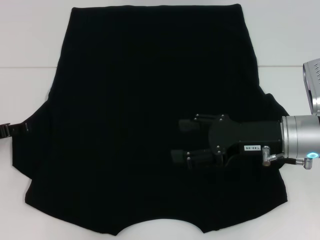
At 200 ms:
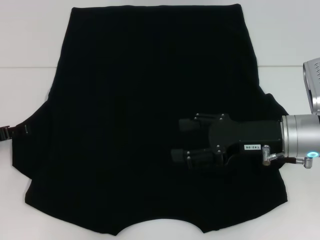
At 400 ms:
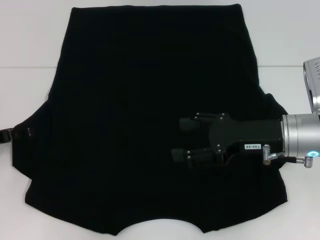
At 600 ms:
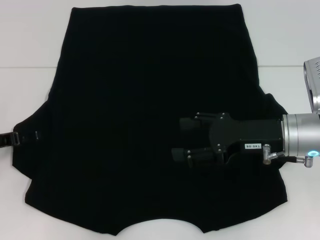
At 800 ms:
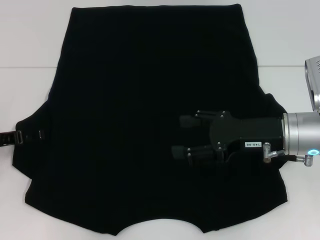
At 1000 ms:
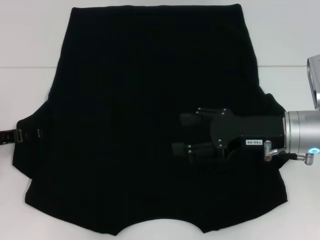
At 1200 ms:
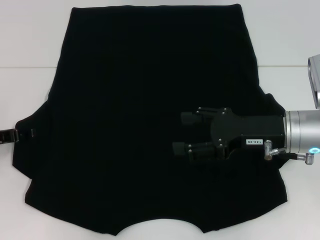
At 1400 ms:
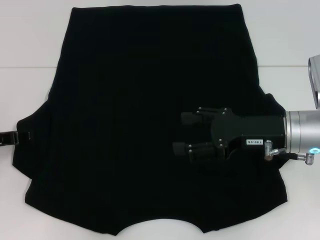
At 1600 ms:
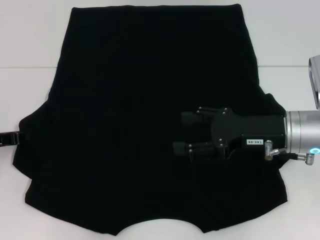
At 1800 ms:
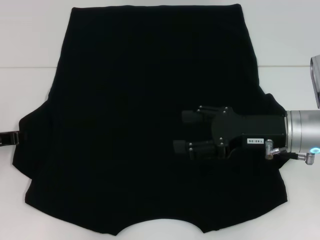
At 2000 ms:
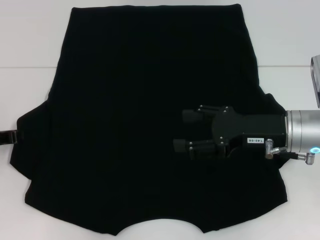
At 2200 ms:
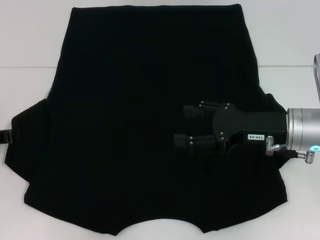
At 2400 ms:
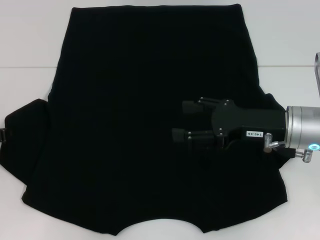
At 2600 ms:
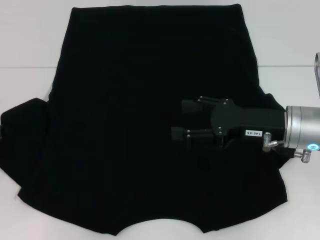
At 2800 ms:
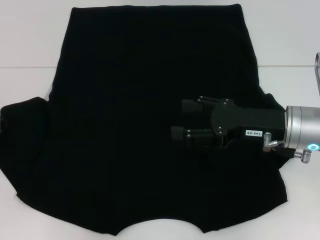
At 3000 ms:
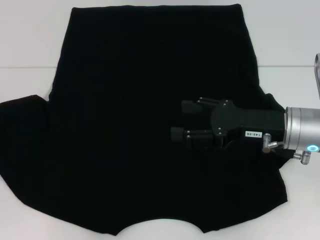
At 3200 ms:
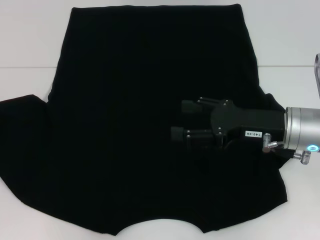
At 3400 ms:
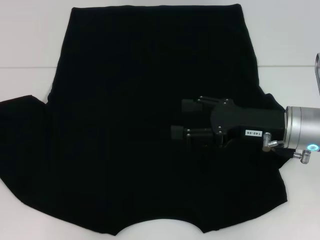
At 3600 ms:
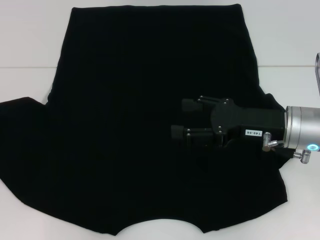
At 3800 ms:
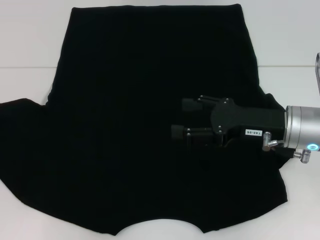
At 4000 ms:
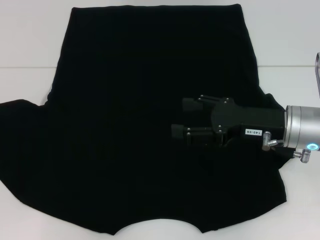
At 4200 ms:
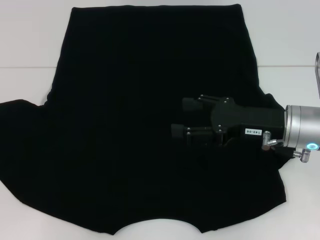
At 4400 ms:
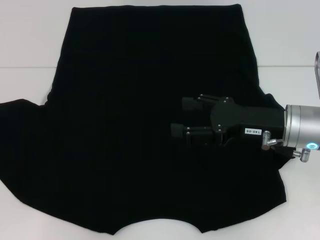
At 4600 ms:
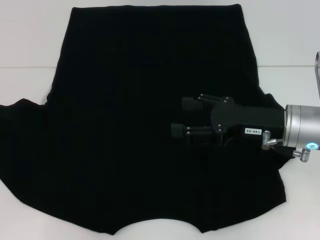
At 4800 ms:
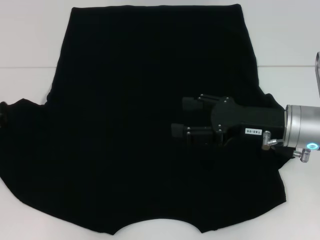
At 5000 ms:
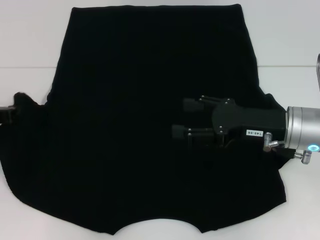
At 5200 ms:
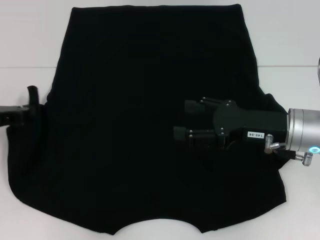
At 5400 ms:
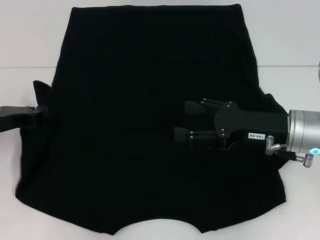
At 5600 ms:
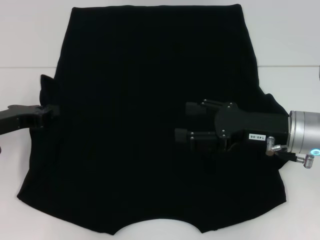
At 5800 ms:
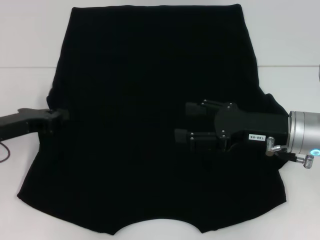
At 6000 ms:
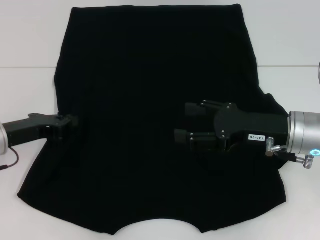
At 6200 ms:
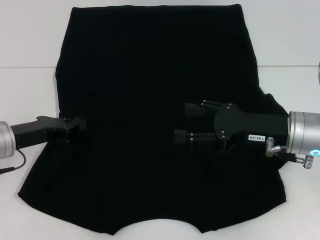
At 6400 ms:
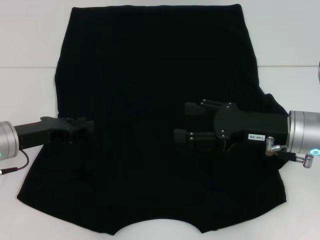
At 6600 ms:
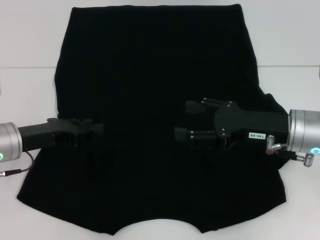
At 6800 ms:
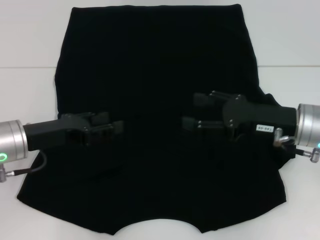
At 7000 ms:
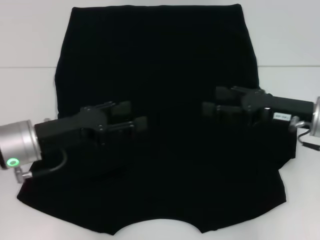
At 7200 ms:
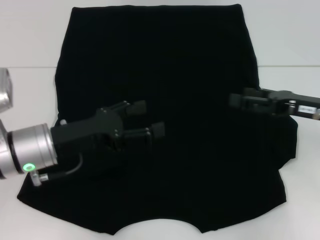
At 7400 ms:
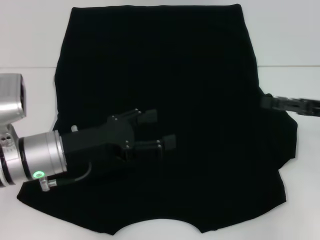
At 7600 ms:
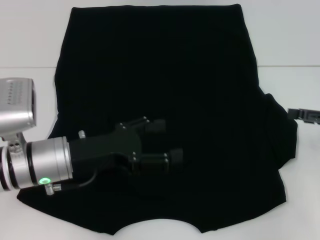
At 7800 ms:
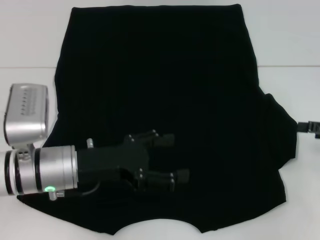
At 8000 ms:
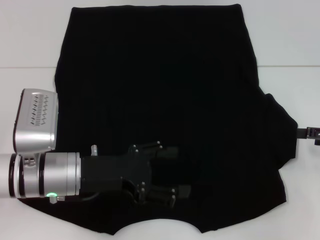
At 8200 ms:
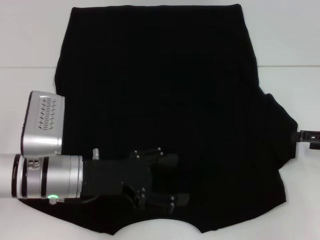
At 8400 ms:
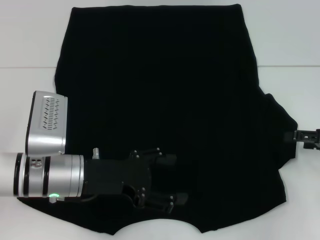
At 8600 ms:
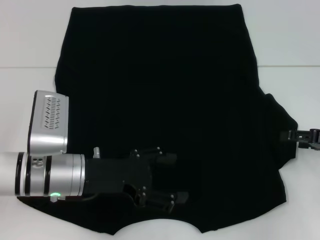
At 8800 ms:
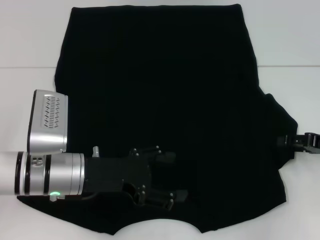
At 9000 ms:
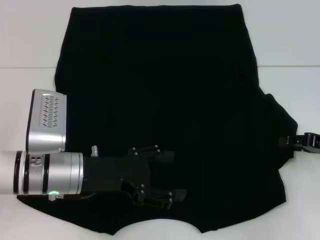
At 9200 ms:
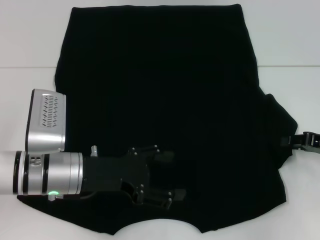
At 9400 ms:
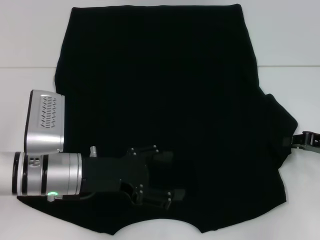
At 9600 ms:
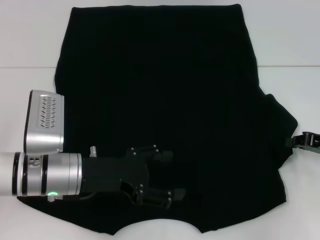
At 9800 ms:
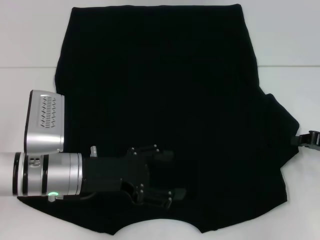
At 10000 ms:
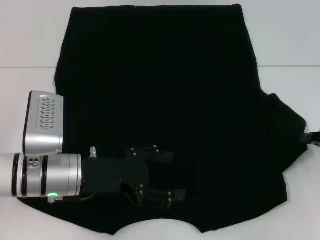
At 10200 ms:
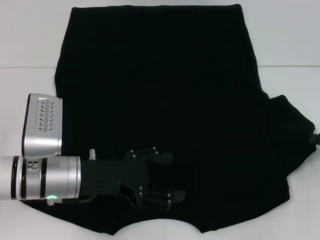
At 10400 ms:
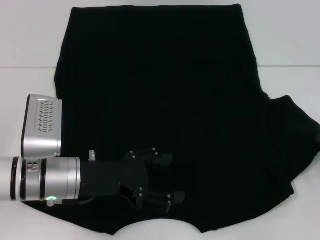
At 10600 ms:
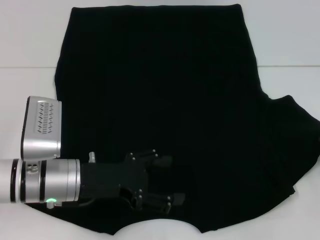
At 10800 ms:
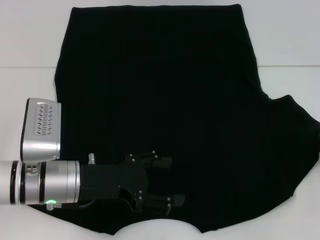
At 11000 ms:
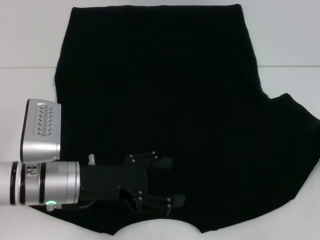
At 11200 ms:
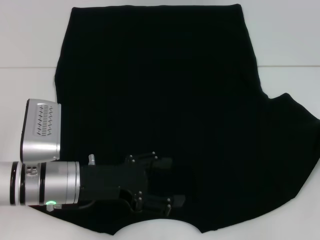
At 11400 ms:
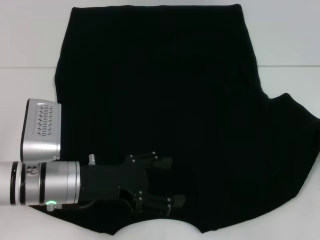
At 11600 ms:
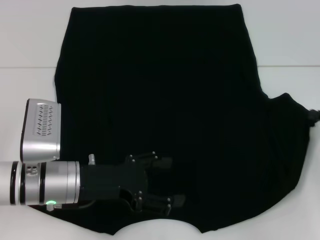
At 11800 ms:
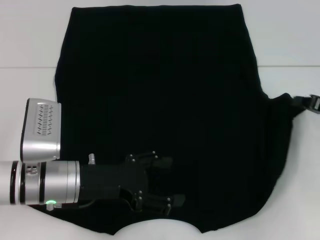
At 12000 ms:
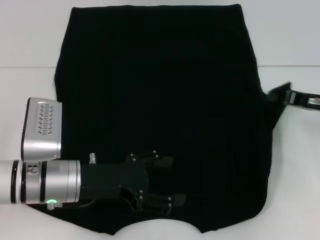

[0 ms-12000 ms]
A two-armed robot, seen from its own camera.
Step, 0 ms to 6600 ms: Fold the bottom left sleeve with your left hand.
0 ms to 1600 ms: The left gripper closes.
1600 ms to 3000 ms: The left gripper closes.
3000 ms to 4400 ms: The grippers make only small movements.
4400 ms to 6000 ms: The left gripper goes some 10 cm to the right.
6000 ms to 7600 ms: The left gripper goes approximately 10 cm to the right, and opens up. Meanwhile the right gripper is displaced to the right by about 15 cm.
7600 ms to 9000 ms: The grippers make only small movements.
9000 ms to 10400 ms: The right gripper changes place by roughly 5 cm, and closes up.
10400 ms to 12000 ms: The right gripper moves to the left and forward, about 10 cm.

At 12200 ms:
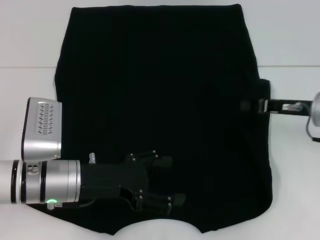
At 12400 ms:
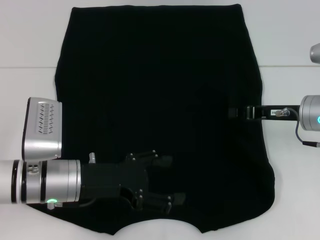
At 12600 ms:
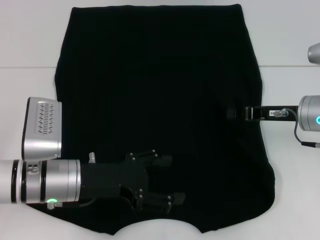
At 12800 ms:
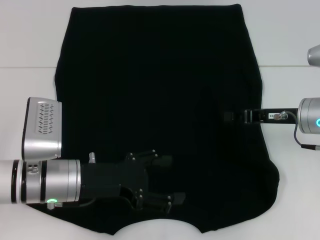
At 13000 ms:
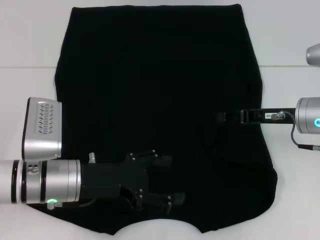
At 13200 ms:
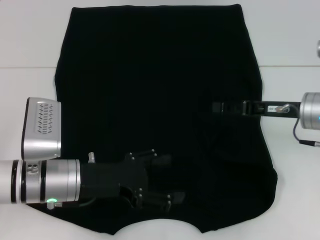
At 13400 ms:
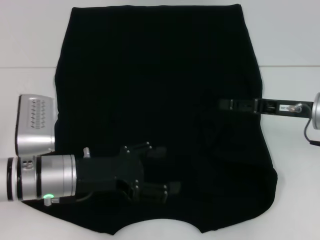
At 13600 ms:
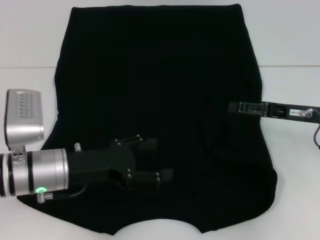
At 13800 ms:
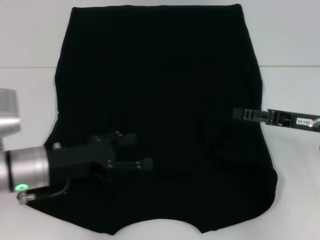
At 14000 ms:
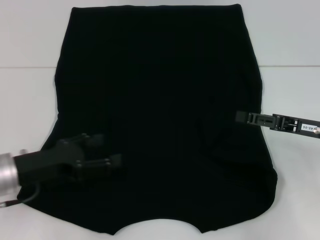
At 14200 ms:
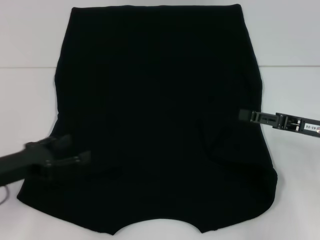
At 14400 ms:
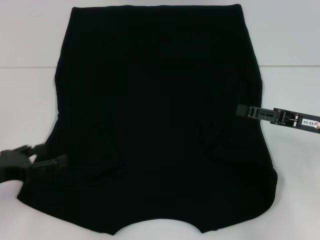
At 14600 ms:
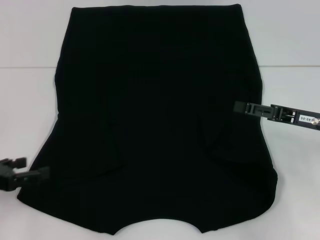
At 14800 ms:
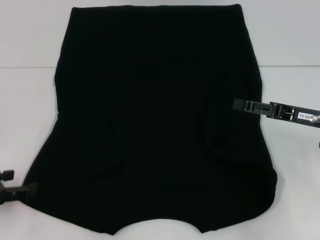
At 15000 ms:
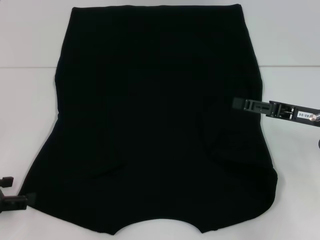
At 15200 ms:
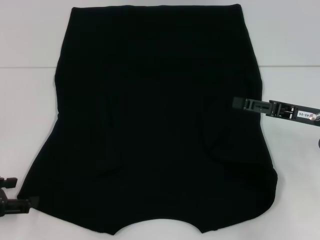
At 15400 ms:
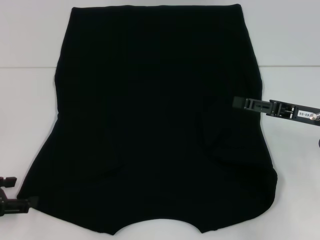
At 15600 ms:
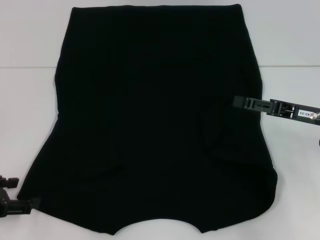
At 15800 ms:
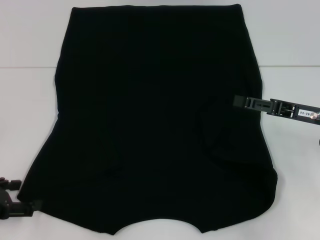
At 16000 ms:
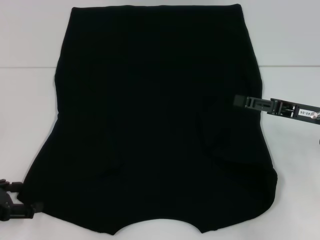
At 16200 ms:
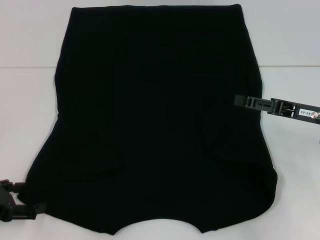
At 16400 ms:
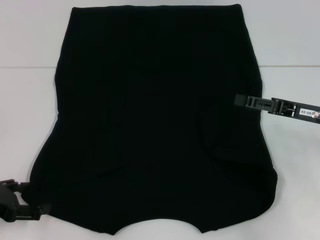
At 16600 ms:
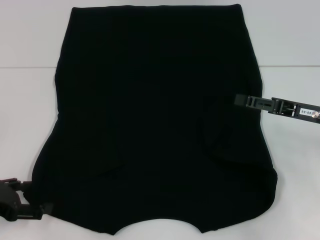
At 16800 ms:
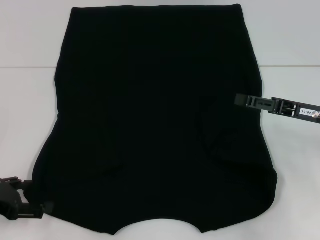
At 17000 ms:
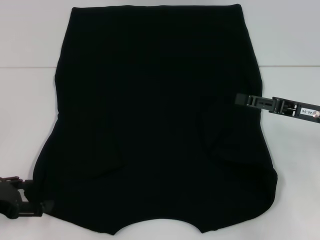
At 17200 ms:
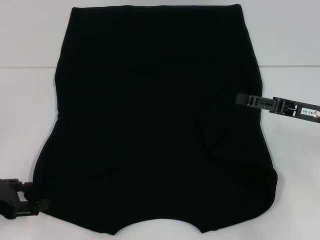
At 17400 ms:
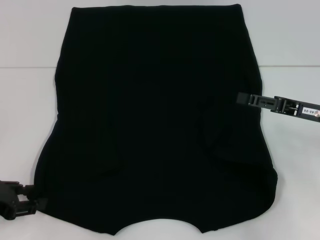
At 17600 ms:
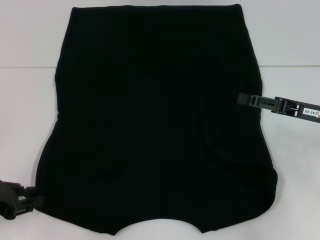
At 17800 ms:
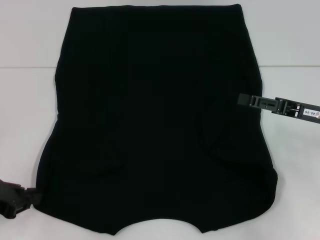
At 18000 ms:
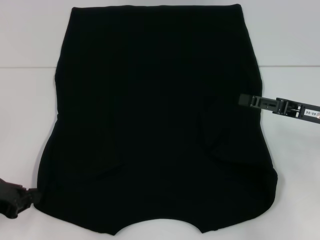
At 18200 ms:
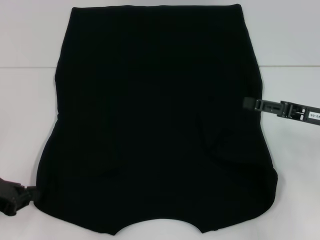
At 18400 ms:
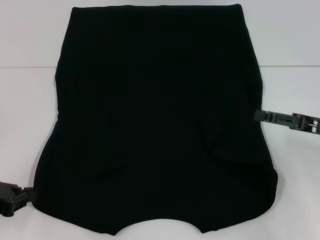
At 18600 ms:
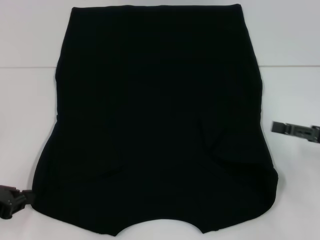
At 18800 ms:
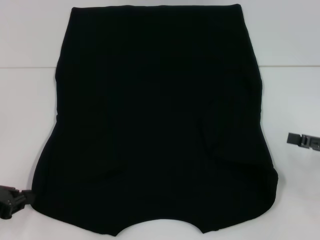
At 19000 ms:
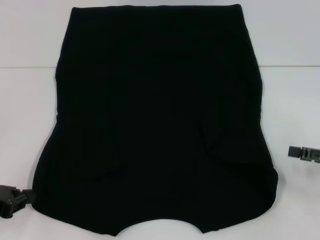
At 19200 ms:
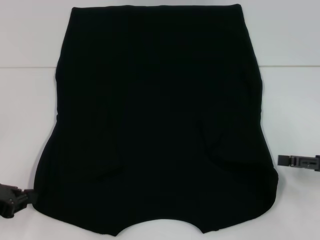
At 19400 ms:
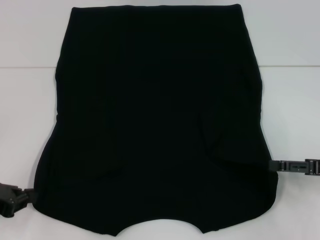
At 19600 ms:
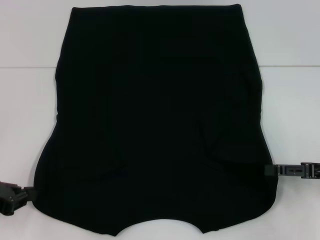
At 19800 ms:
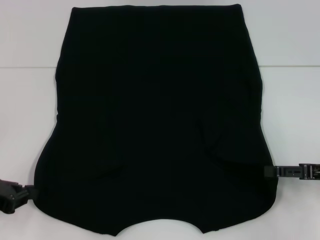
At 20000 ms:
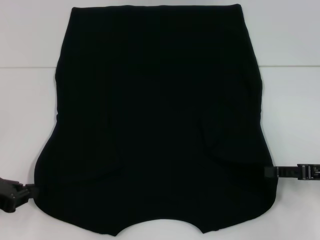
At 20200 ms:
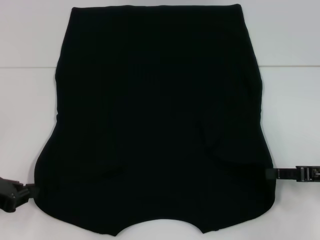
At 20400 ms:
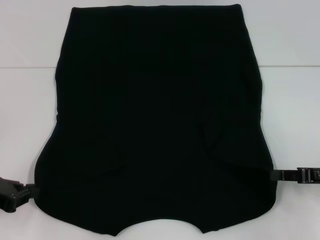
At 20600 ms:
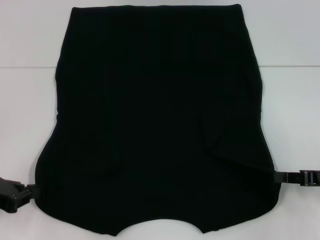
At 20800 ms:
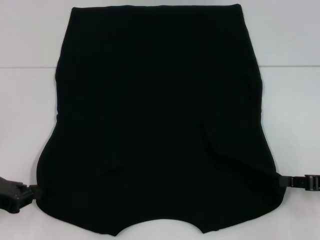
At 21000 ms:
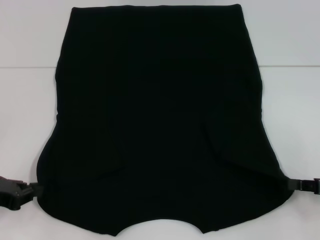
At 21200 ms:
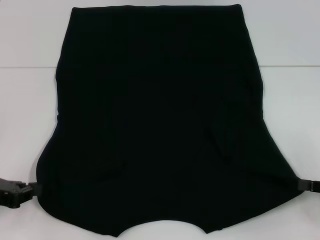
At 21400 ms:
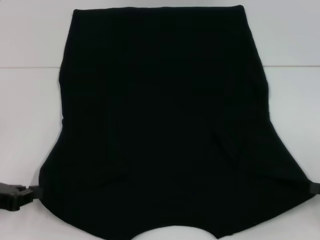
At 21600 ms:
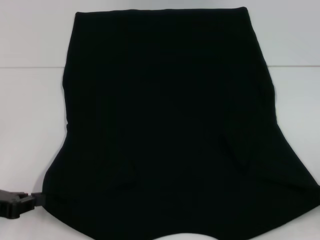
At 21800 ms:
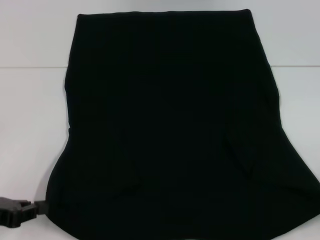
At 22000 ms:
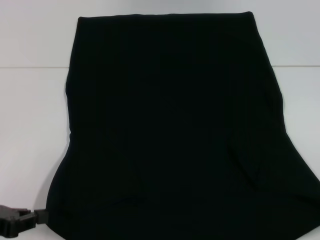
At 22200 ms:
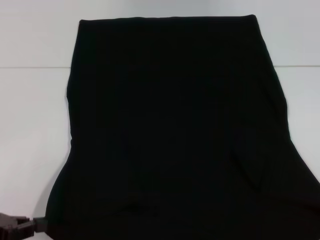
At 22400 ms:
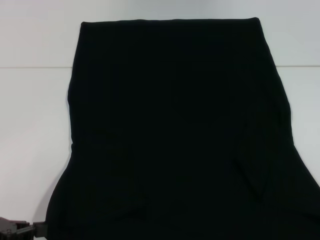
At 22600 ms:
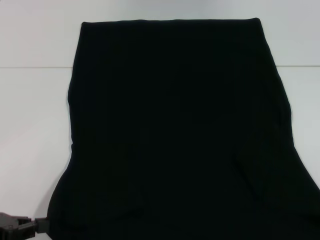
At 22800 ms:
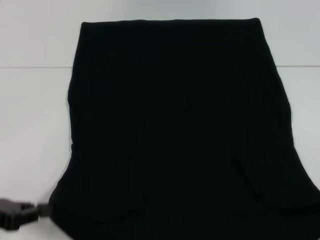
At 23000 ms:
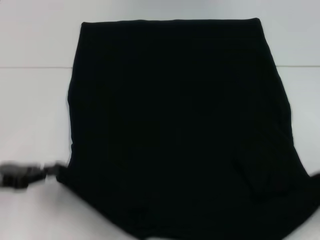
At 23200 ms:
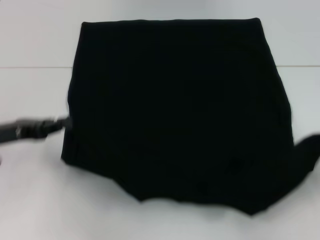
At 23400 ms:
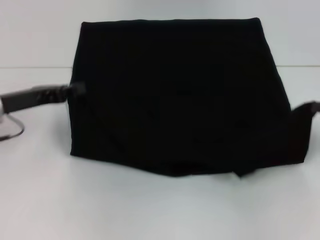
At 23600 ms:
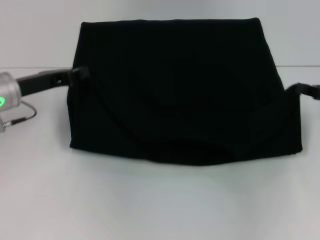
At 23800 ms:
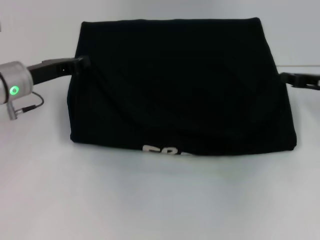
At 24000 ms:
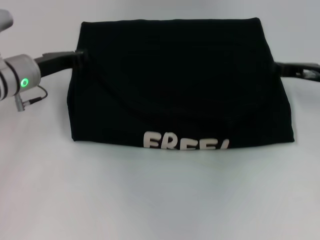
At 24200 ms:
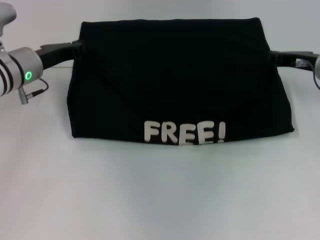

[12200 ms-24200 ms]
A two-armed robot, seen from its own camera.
Step, 13600 ms to 18400 ms: Grab the bottom left corner with your left hand.
Step, 18600 ms to 21200 ms: Grab the bottom right corner with your right hand.
12200 ms to 13800 ms: The right gripper opens.
13800 ms to 15200 ms: The left gripper moves to the left and backward, roughly 15 cm.
15200 ms to 16600 ms: The grippers stay close to where they were, moving slightly.
16600 ms to 18200 ms: The left gripper closes up.
18200 ms to 19800 ms: The right gripper shifts by about 5 cm.
19800 ms to 21200 ms: The right gripper moves some 5 cm, and closes up.
21200 ms to 22600 ms: The right gripper shifts about 10 cm backward.
22600 ms to 24200 ms: The left gripper goes approximately 25 cm forward and to the right. The right gripper is displaced forward and to the left by roughly 30 cm.
